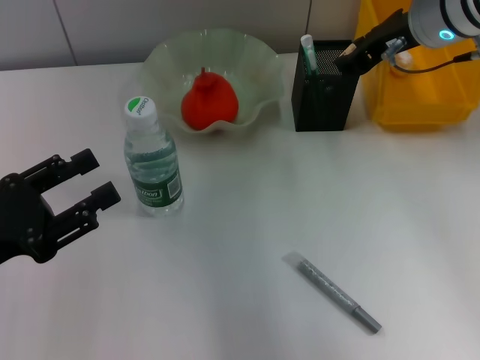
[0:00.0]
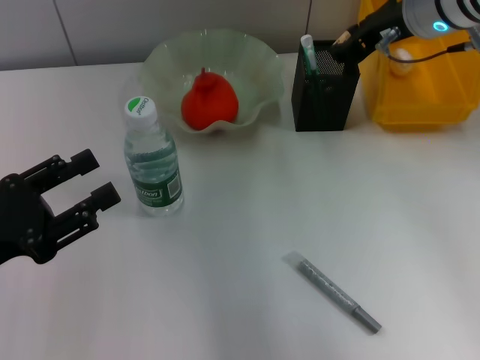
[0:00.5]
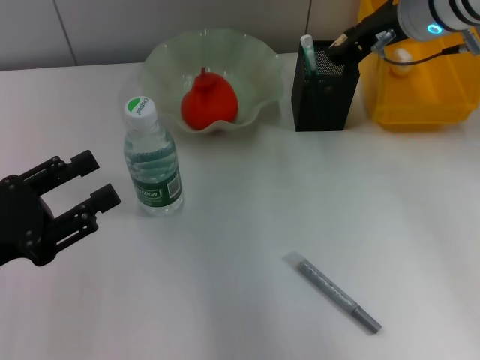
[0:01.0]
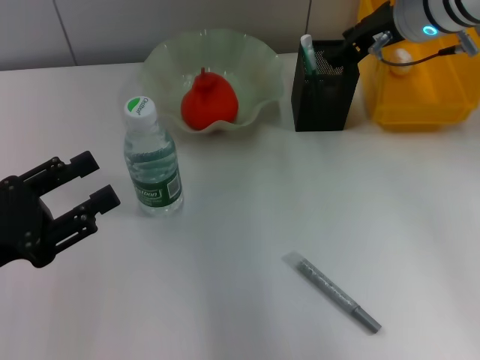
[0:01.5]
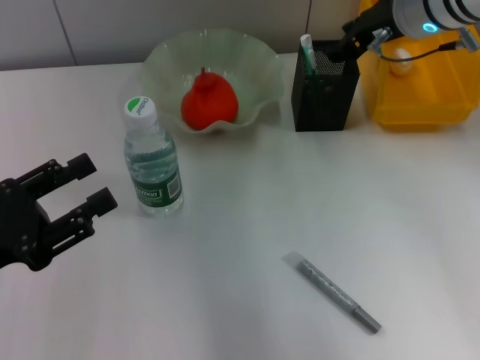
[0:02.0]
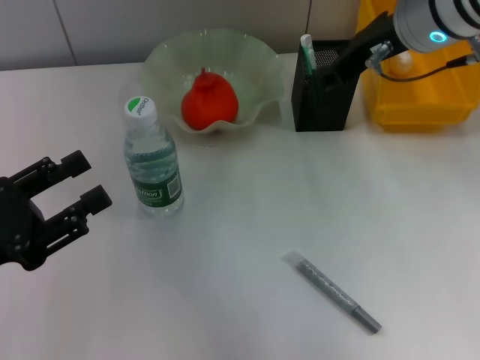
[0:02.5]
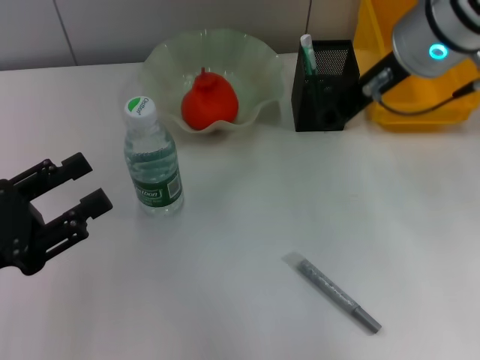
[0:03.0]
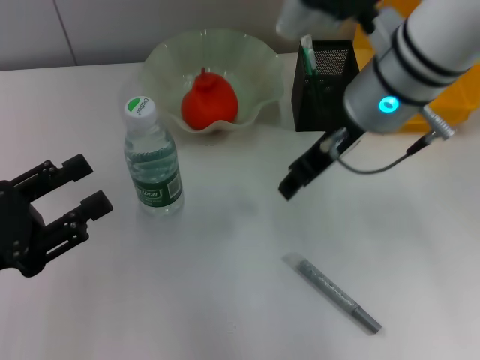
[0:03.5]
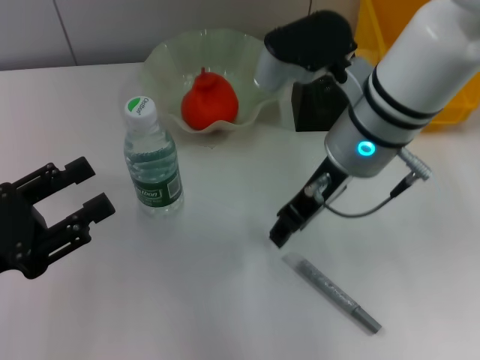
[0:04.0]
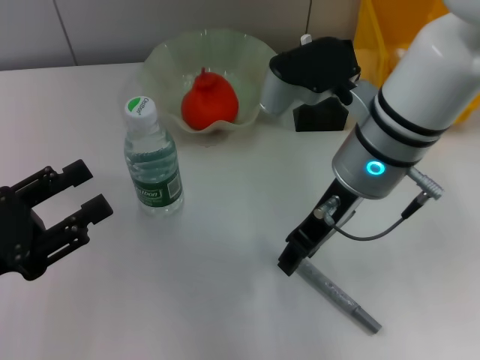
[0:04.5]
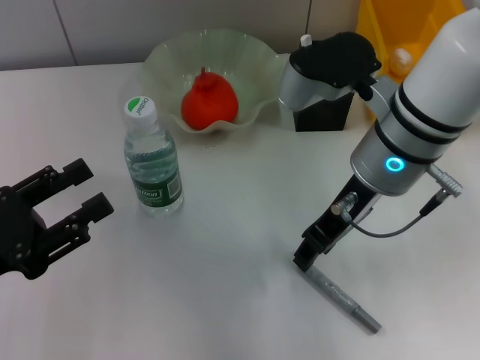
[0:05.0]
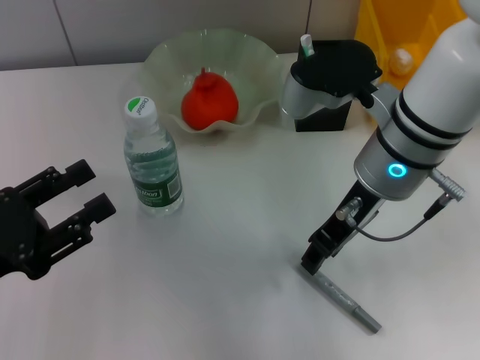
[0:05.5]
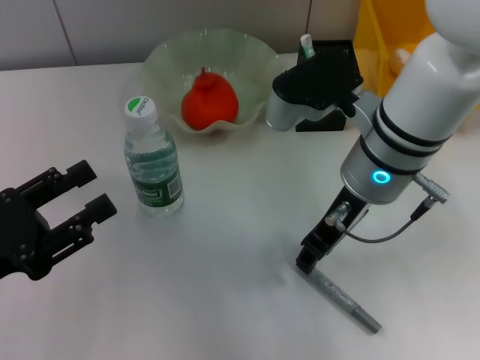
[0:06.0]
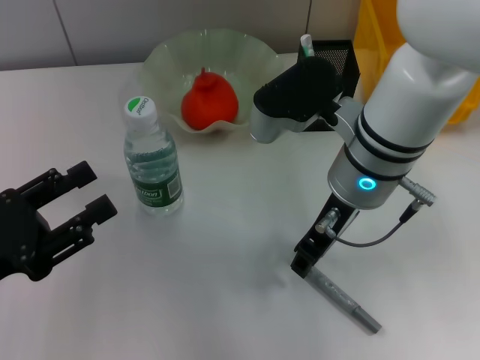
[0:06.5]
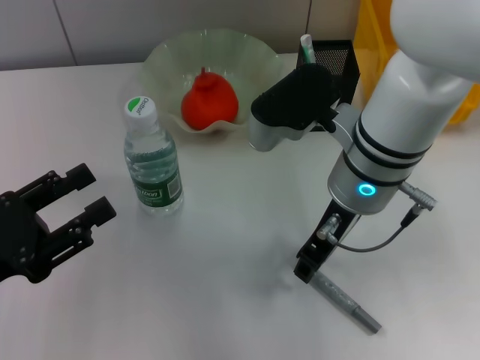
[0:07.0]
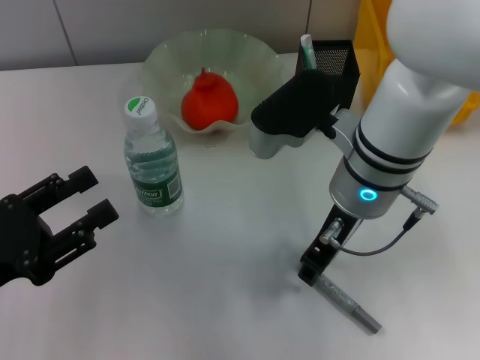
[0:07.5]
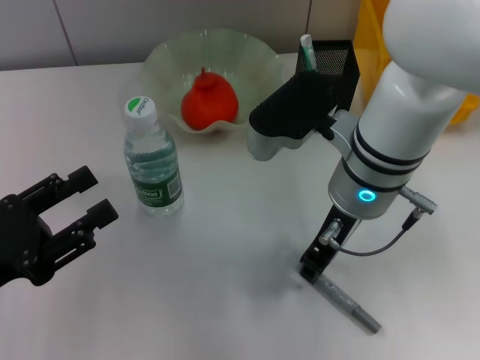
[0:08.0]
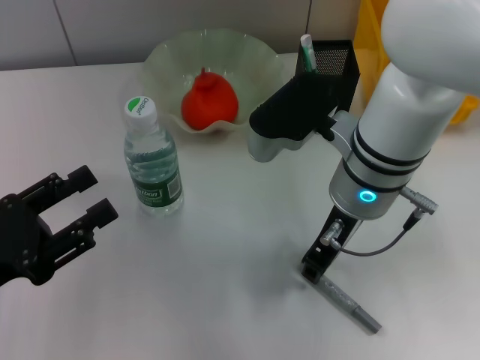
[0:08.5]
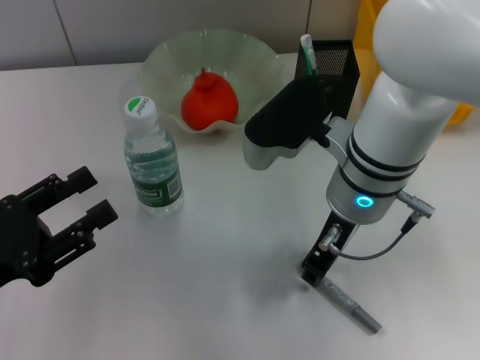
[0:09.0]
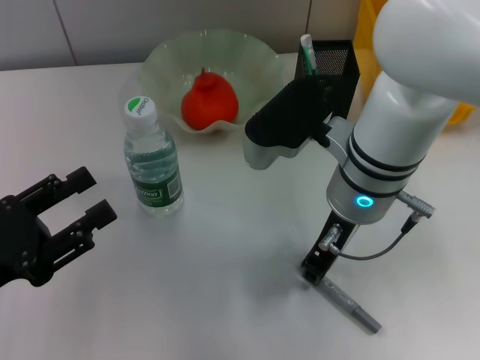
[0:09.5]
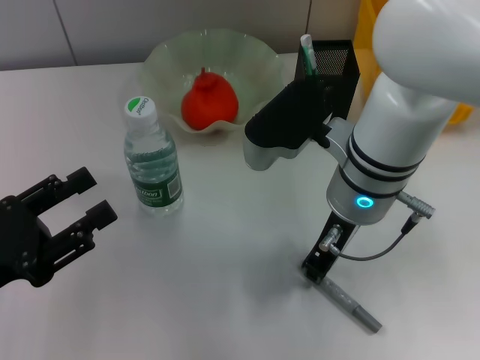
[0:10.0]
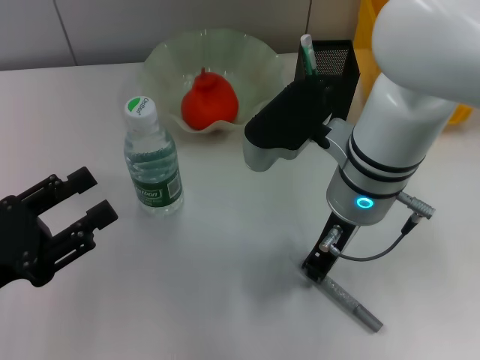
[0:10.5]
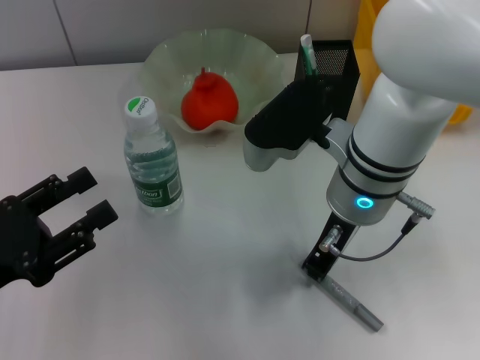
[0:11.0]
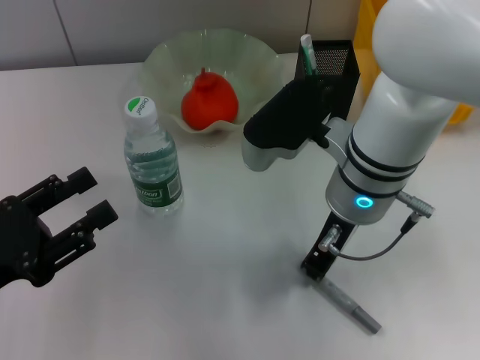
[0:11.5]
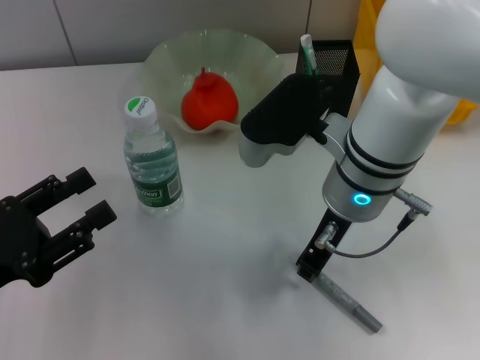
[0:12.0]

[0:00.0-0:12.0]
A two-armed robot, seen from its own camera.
0:00.0 to 0:02.0: The grippers stay close to where they were, moving slightly.
0:02.0 to 0:04.0: The right gripper heads backward and to the left, covering some 10 cm.
0:04.0 to 0:08.0: The grippers move only a little.
0:08.0 to 0:12.0: The two grippers keep their place.

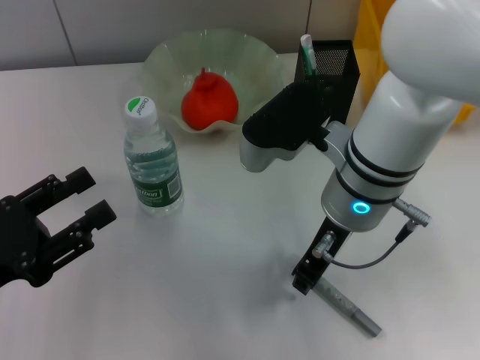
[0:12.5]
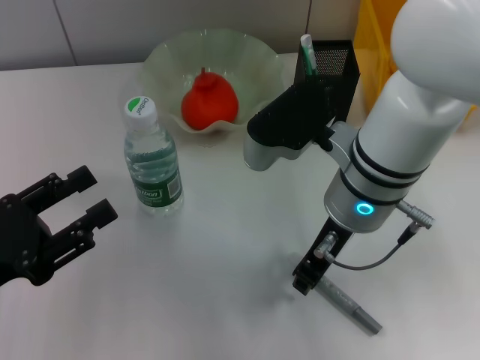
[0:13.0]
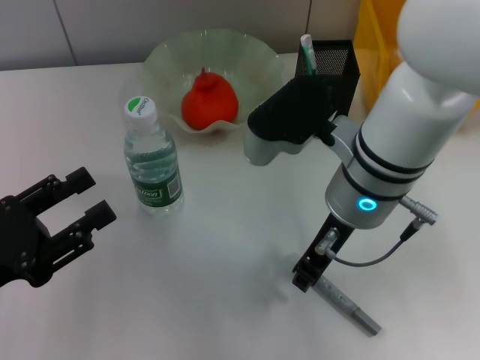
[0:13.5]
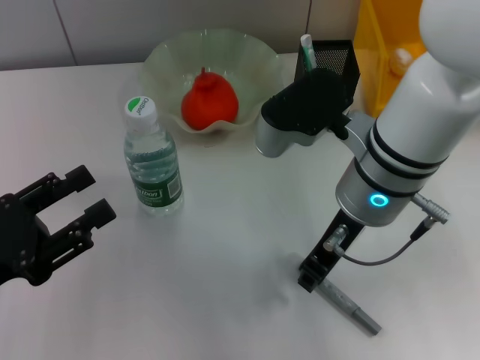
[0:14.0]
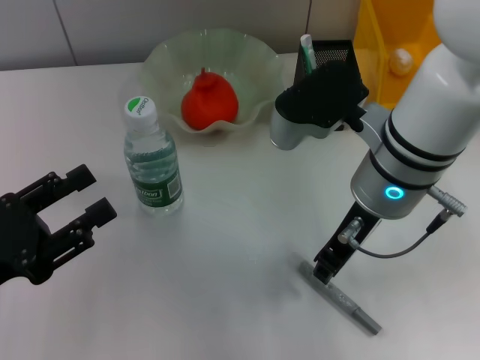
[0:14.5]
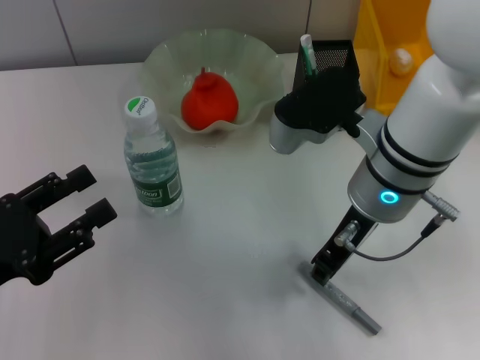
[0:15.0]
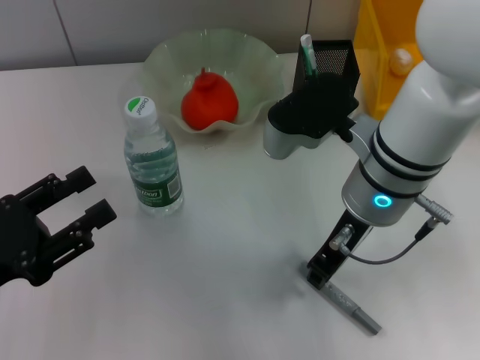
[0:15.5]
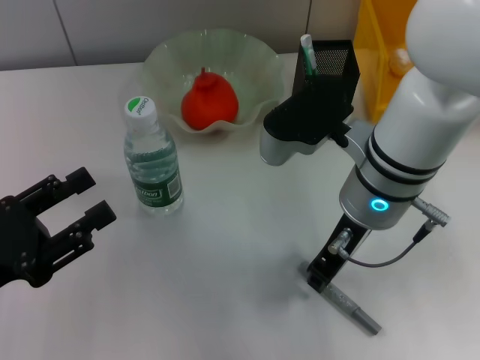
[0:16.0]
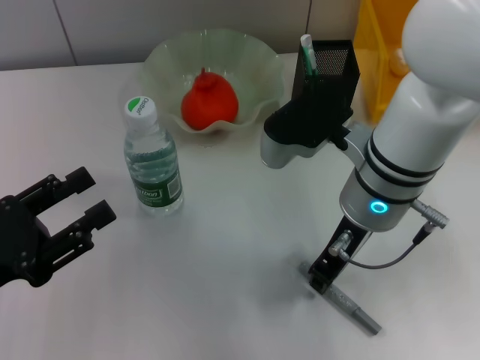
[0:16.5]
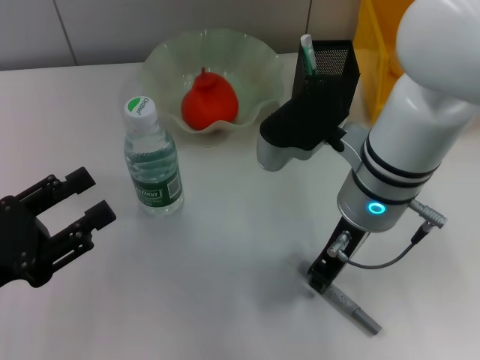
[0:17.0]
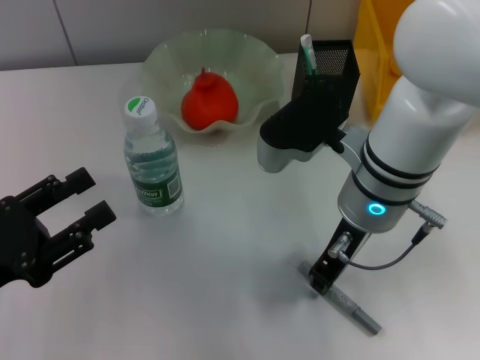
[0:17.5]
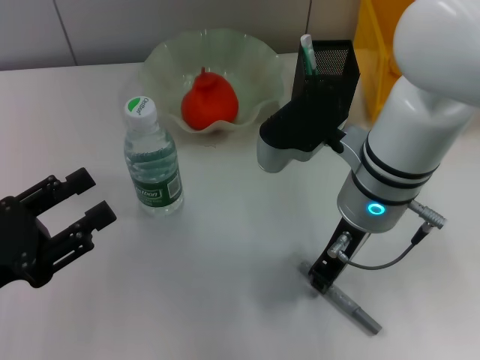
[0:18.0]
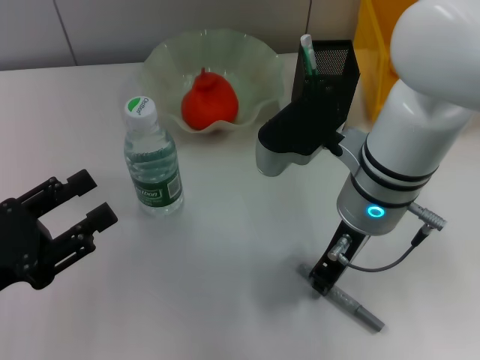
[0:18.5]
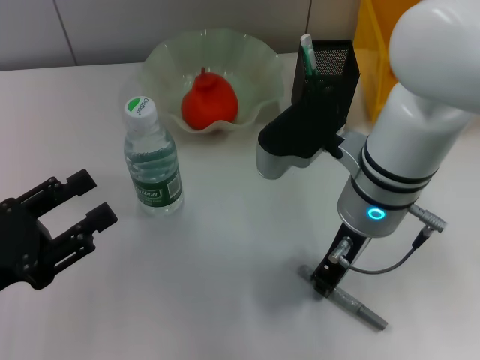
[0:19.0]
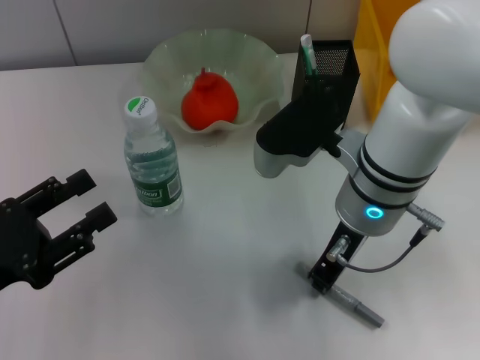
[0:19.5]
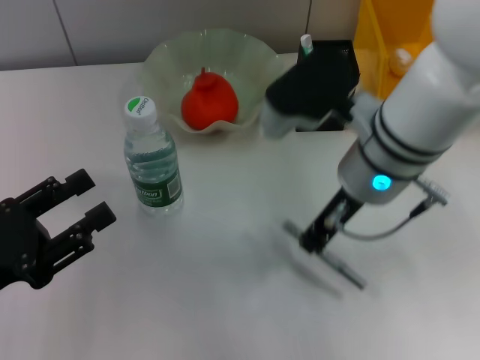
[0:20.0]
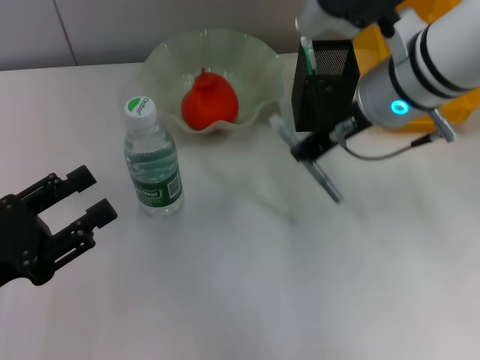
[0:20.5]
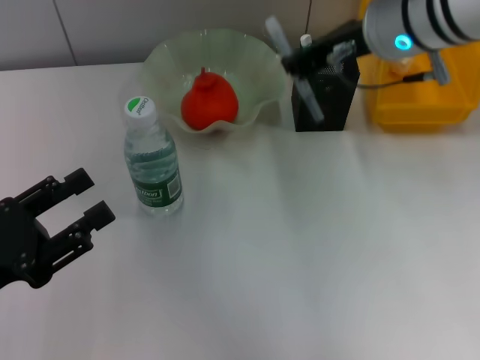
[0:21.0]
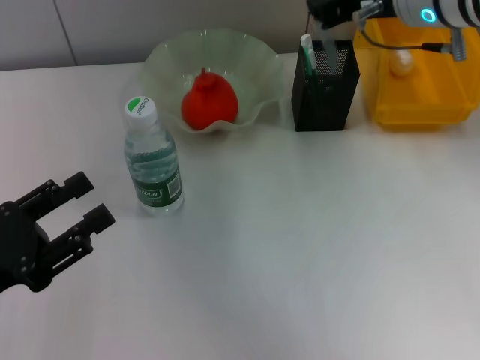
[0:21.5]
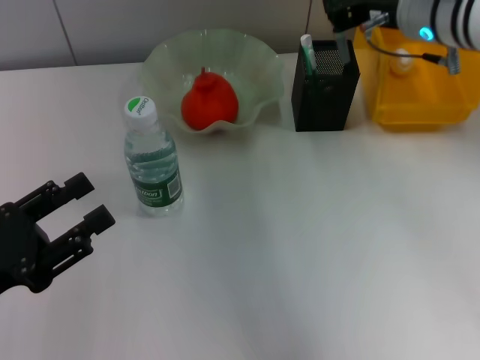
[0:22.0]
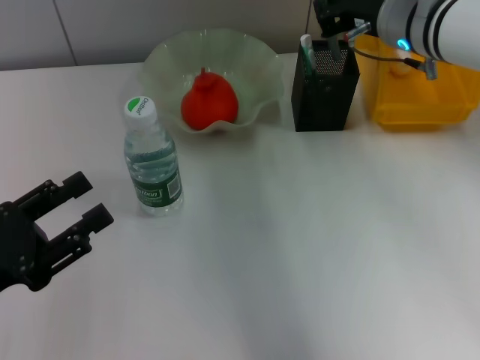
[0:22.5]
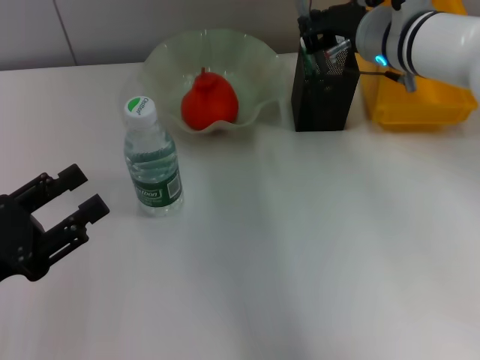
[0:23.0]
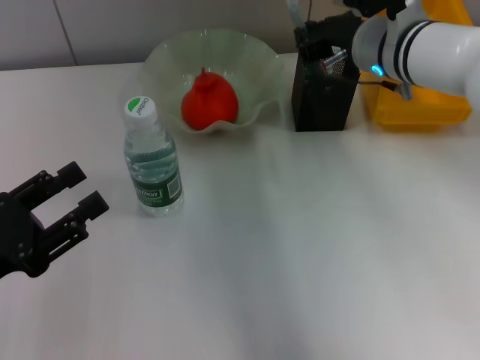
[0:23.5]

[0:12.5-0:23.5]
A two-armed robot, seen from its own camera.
Step, 0:12.5 to 0:19.0: Grab the gray glue with the right hand.
0:12.5 to 0:16.0: The grippers make only small movements.
0:16.0 to 0:18.0: Both grippers stay about where they are.
0:18.0 to 0:20.0: The grippers make only small movements.
0:20.0 to 0:21.5: The right gripper travels forward, upward and to the right by some 10 cm.
0:21.5 to 0:23.5: The right gripper is displaced downward by about 10 cm.

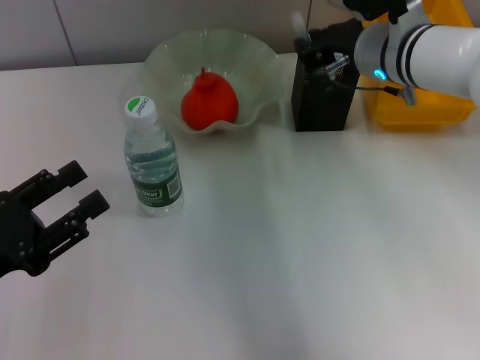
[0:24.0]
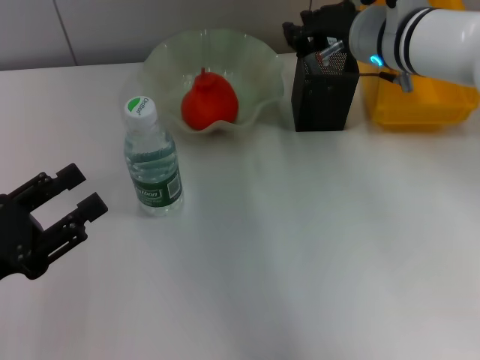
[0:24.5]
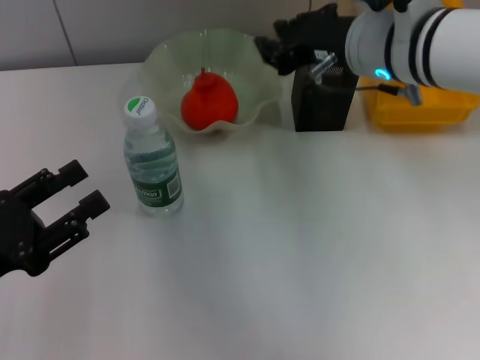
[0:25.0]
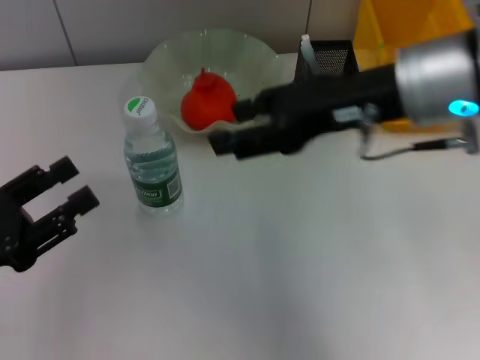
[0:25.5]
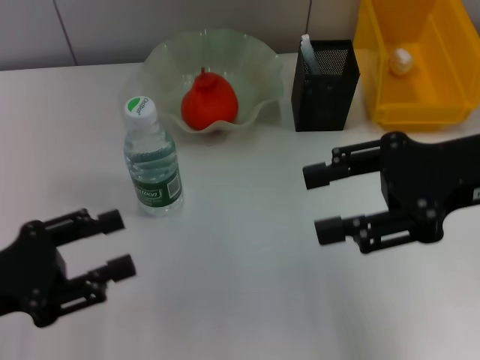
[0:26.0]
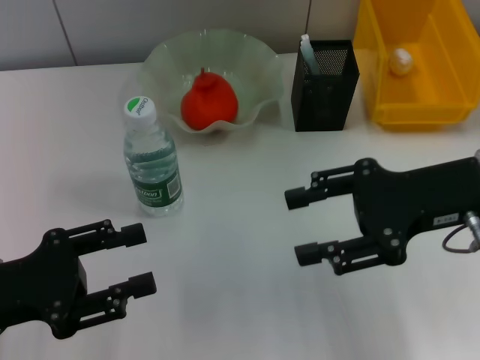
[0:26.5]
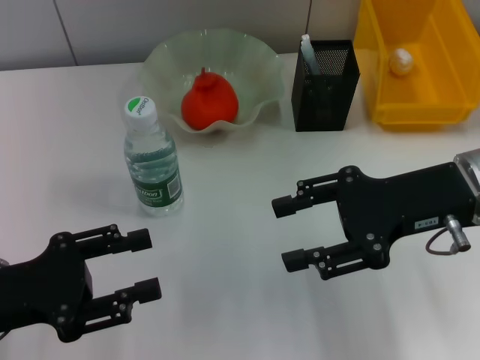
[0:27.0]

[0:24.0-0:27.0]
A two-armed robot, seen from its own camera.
0:24.0 to 0:25.5: The right gripper is displaced backward and upward by approximately 15 cm, and opens up.
0:25.5 to 0:27.0: The right gripper moves downward and to the right, about 10 cm.
